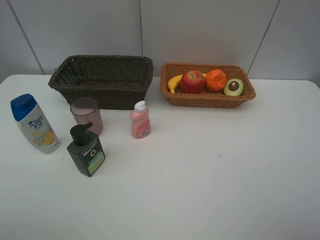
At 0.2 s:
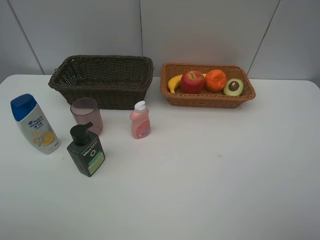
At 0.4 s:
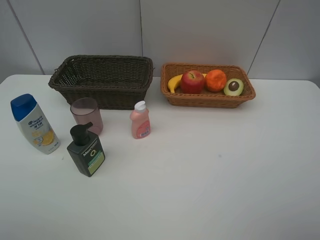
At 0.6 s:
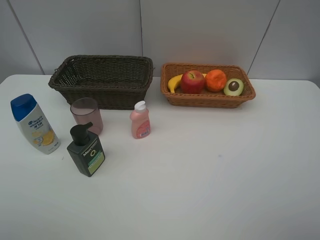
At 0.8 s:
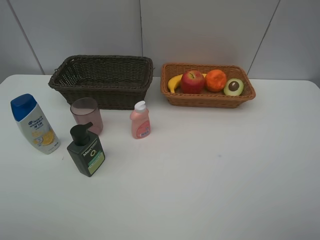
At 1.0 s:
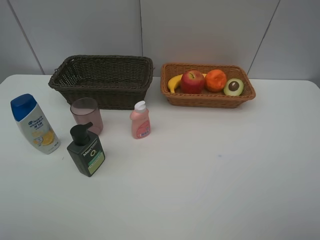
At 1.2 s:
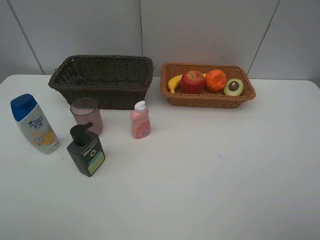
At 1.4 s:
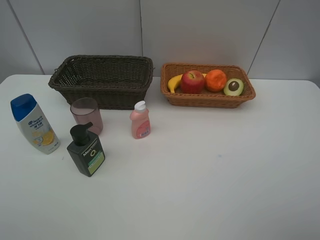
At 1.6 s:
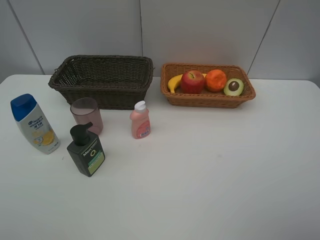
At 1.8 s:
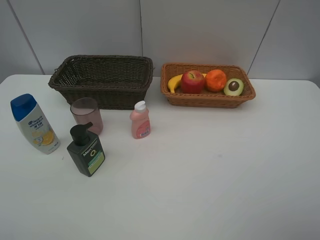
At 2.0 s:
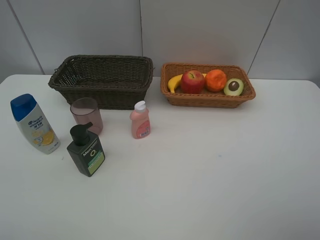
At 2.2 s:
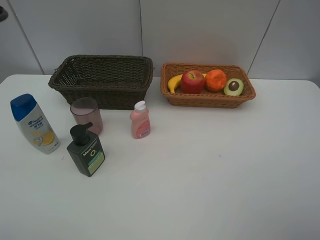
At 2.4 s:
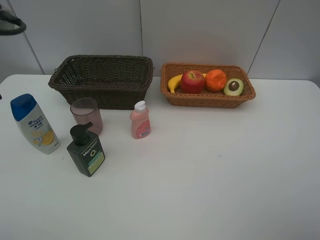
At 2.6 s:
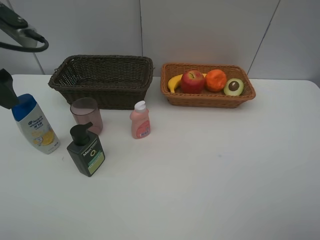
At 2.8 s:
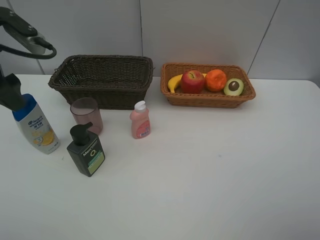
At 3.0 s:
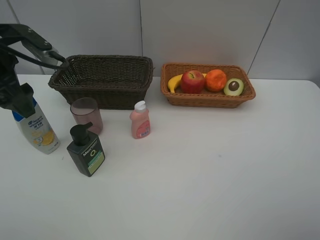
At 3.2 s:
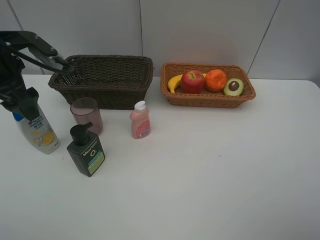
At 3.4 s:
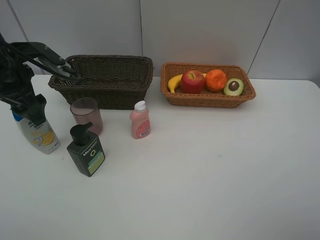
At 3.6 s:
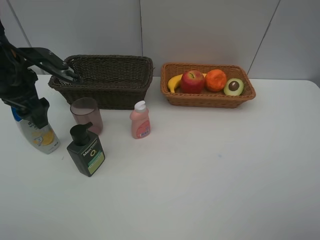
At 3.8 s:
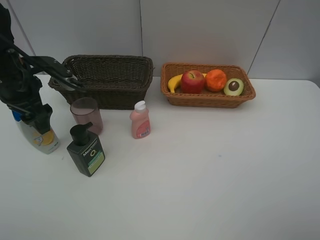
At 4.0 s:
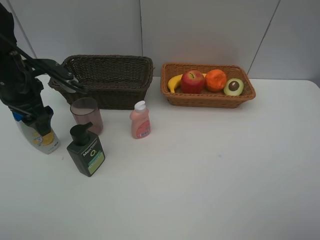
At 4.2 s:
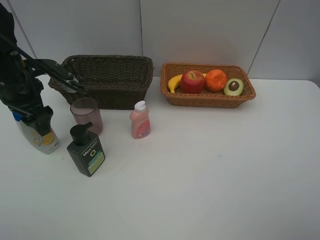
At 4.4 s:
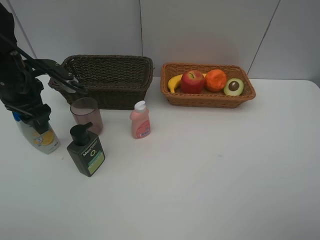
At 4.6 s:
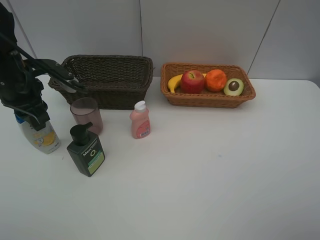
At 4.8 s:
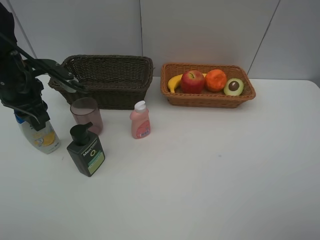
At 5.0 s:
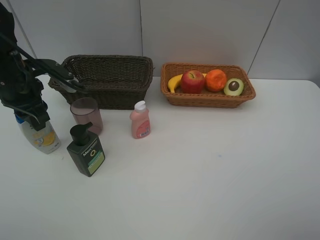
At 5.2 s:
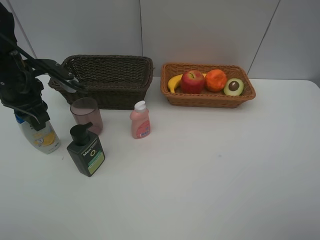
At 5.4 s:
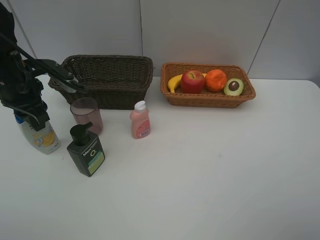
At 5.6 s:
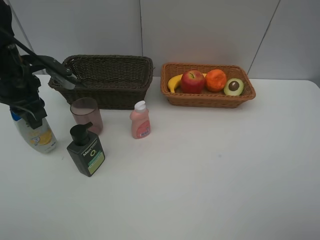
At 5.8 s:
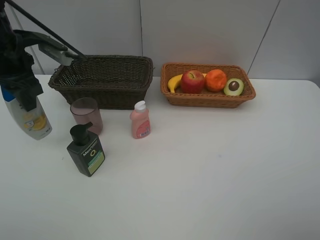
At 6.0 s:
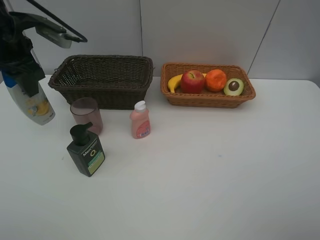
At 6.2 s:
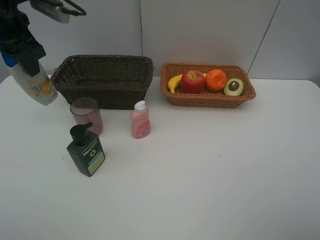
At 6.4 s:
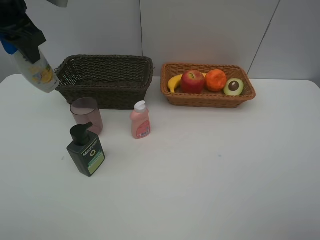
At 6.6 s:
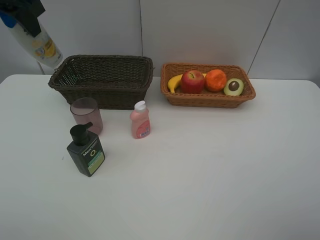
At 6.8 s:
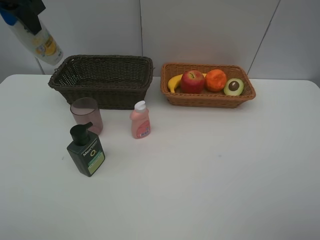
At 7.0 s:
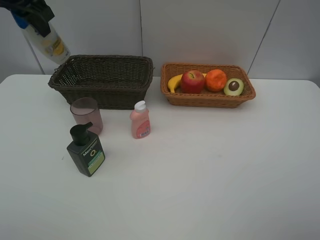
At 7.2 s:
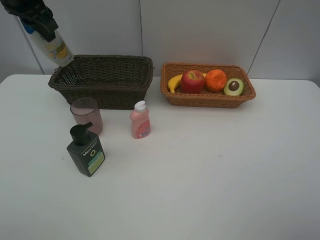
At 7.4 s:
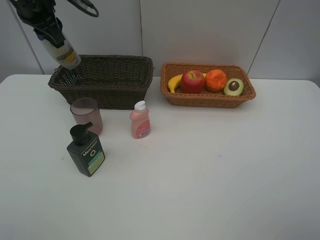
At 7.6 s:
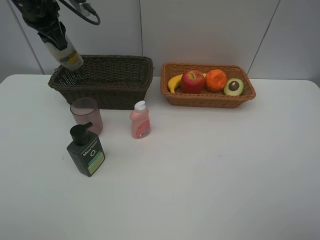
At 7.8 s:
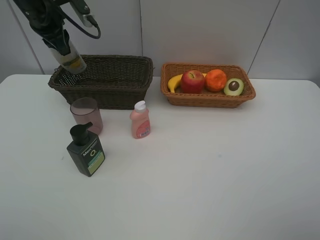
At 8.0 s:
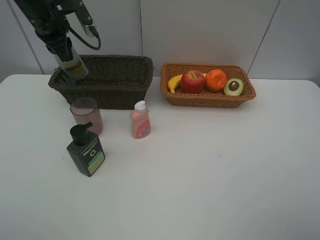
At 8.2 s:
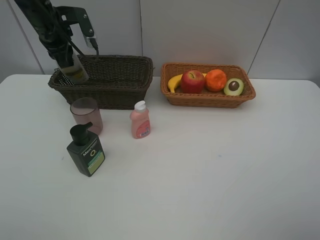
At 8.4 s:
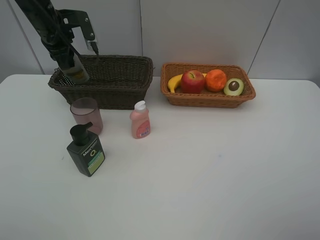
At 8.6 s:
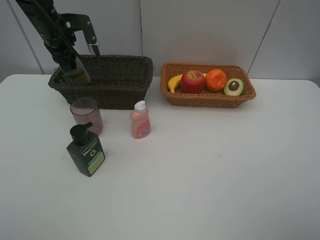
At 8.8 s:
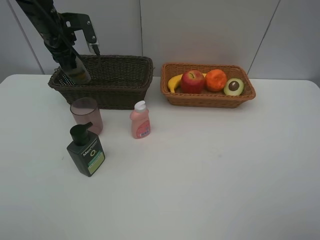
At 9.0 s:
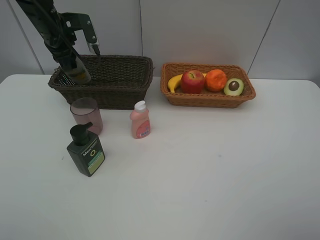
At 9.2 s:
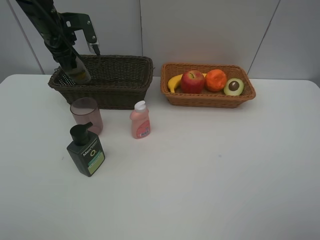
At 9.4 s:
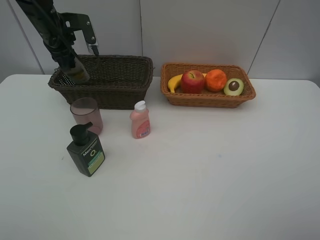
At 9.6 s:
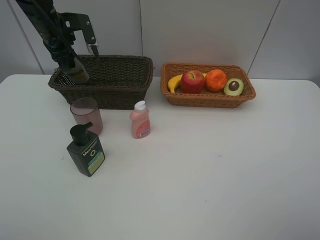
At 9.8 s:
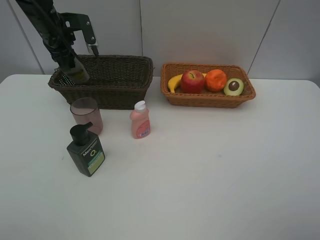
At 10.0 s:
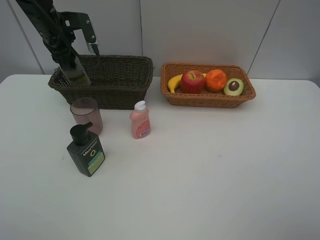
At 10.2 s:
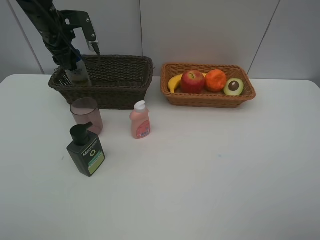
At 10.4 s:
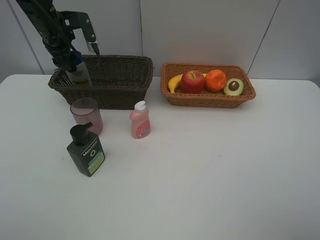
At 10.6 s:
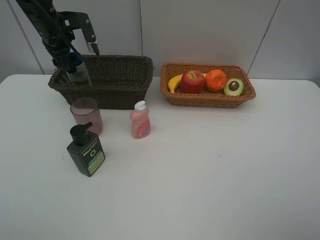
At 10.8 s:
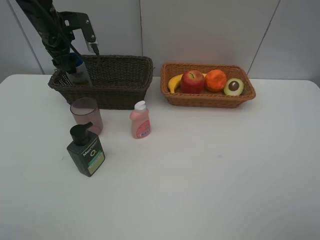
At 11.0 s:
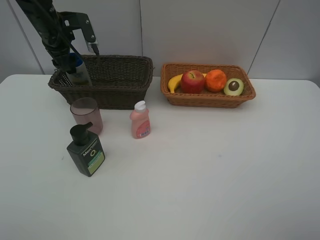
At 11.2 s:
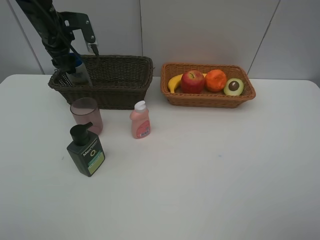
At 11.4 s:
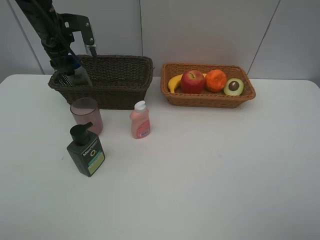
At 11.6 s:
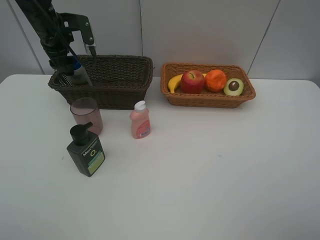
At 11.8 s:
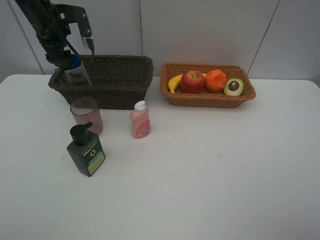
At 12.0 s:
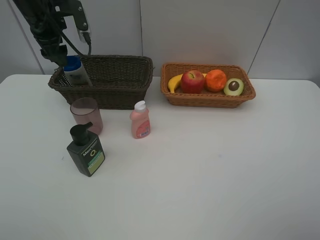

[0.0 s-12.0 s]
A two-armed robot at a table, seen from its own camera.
Task of the whole recording: Place multiple objects separately in different baskets.
Step, 0.0 to 5.8 s: Pick up the shampoo with left gripper.
1.6 to 3.0 s: The left gripper is displaced forward and downward by approximately 20 cm.
3.0 to 4.4 s: The left gripper moves downward, some 5 cm.
4.4 to 6.0 s: The left gripper heads upward, covering roughly 10 cm.
6.0 to 7.6 s: The left gripper moves forward, approximately 10 cm.
7.6 to 9.0 s: The left gripper travels downward by approximately 5 cm.
10.4 to 12.0 s: There are only small adjustments of the grippers.

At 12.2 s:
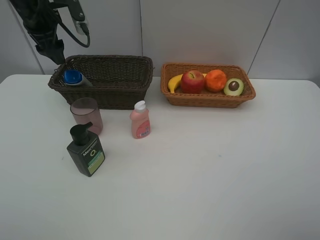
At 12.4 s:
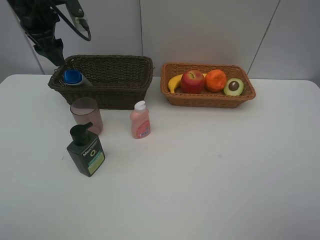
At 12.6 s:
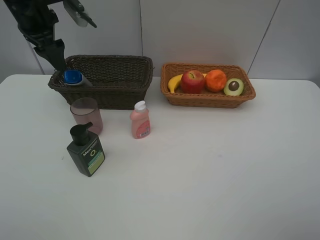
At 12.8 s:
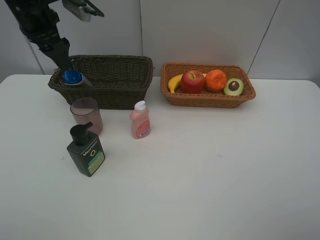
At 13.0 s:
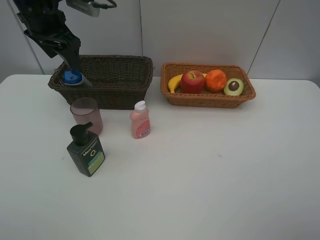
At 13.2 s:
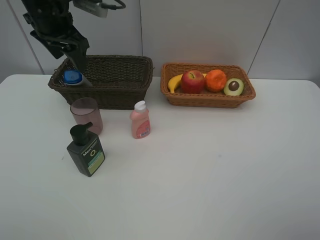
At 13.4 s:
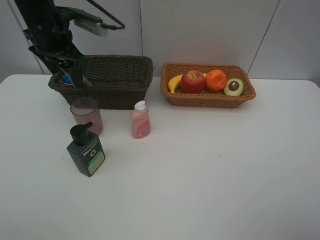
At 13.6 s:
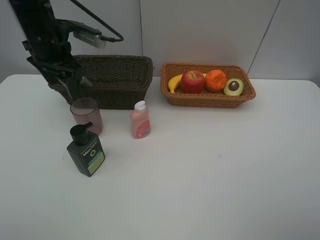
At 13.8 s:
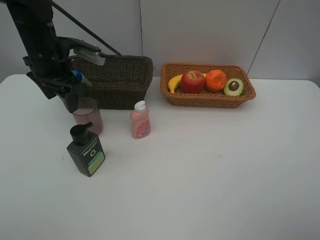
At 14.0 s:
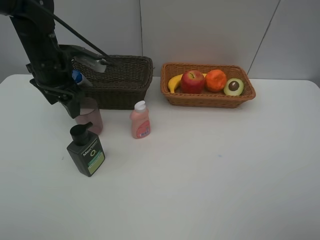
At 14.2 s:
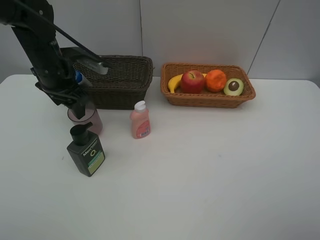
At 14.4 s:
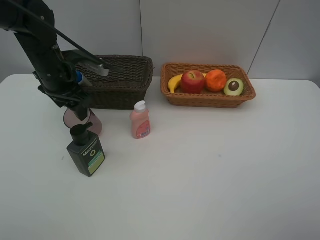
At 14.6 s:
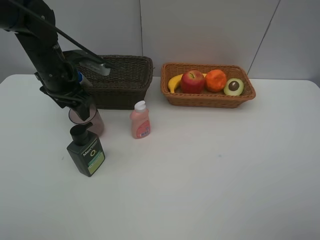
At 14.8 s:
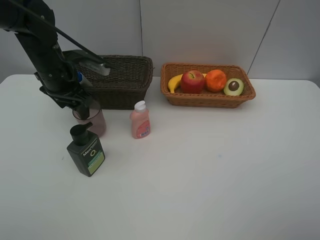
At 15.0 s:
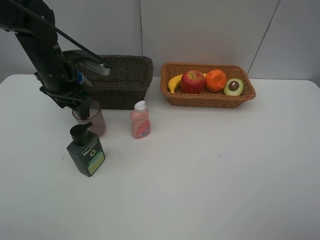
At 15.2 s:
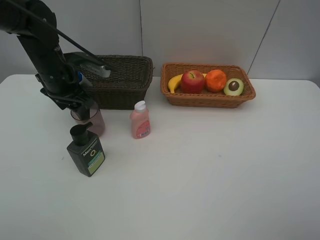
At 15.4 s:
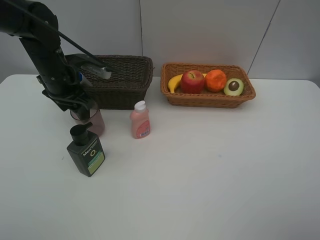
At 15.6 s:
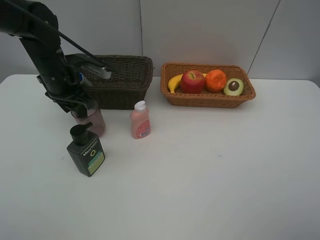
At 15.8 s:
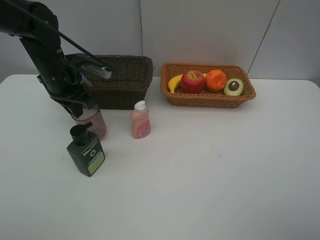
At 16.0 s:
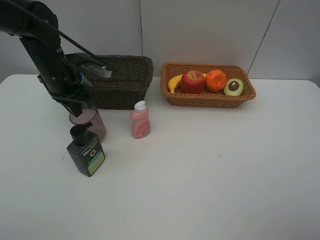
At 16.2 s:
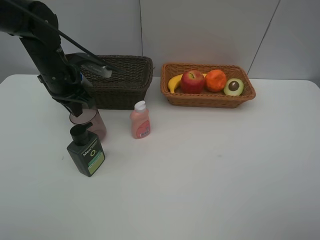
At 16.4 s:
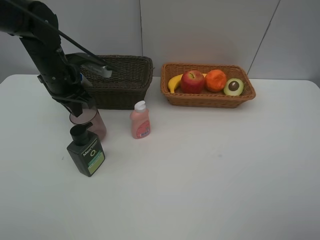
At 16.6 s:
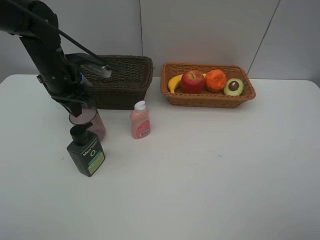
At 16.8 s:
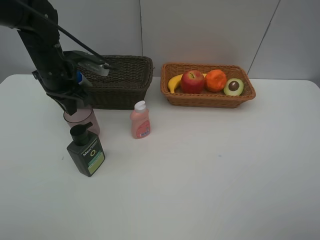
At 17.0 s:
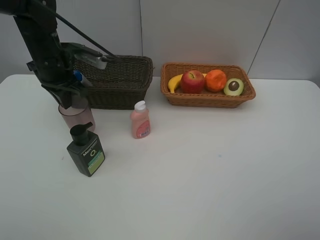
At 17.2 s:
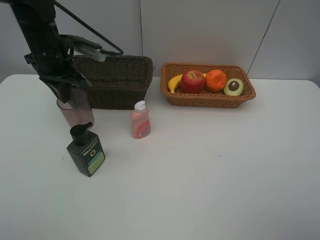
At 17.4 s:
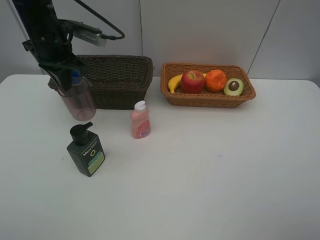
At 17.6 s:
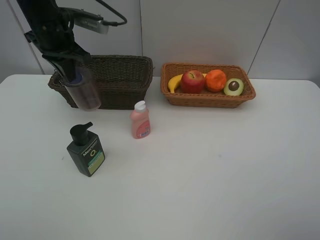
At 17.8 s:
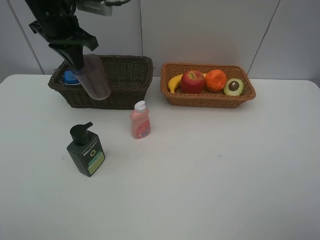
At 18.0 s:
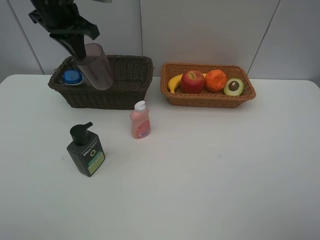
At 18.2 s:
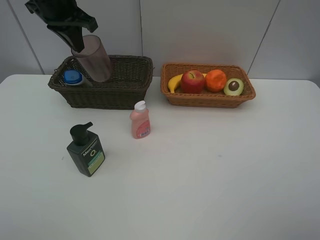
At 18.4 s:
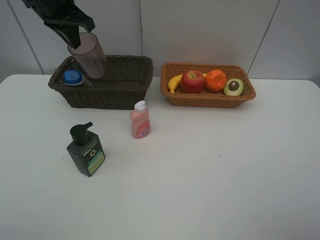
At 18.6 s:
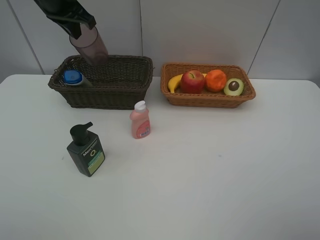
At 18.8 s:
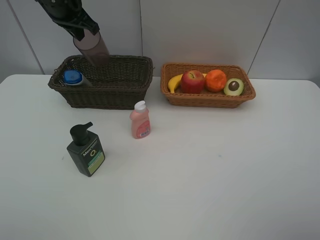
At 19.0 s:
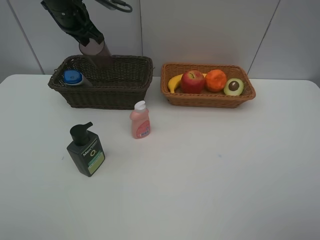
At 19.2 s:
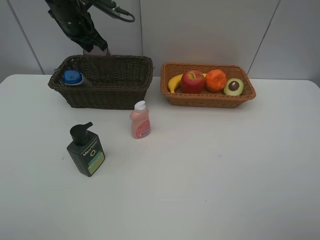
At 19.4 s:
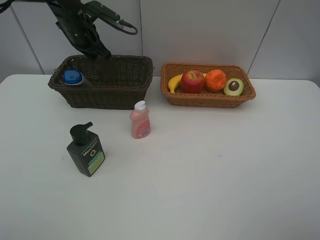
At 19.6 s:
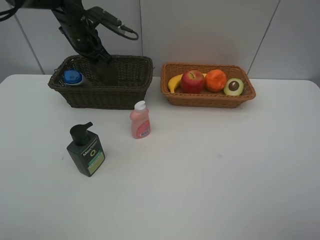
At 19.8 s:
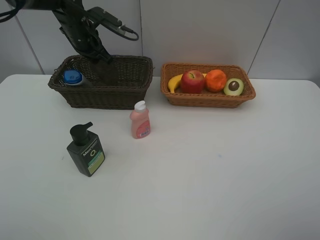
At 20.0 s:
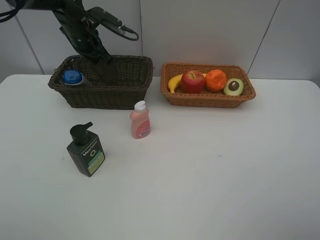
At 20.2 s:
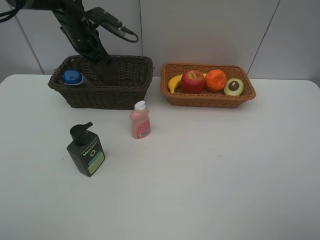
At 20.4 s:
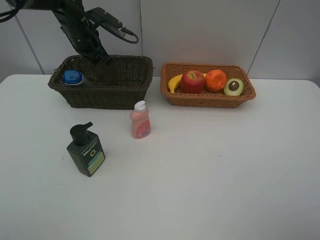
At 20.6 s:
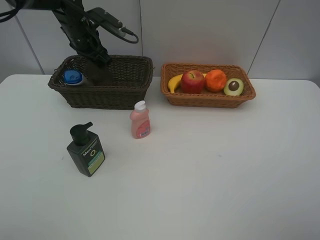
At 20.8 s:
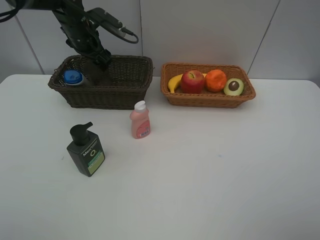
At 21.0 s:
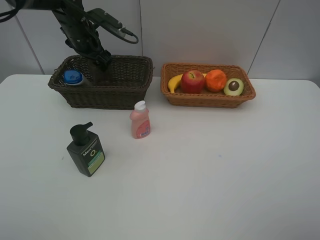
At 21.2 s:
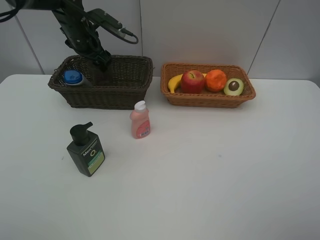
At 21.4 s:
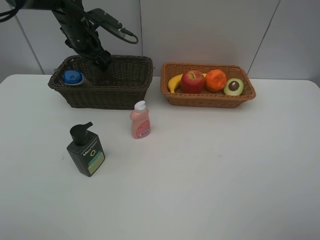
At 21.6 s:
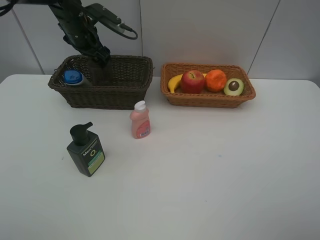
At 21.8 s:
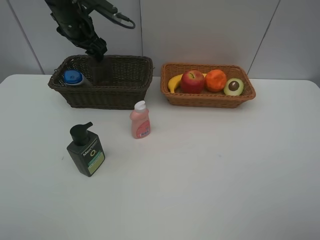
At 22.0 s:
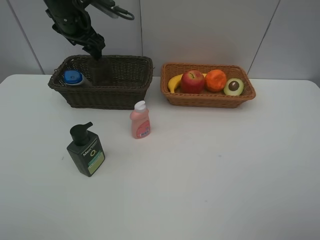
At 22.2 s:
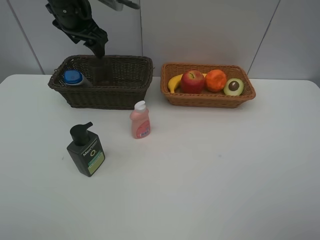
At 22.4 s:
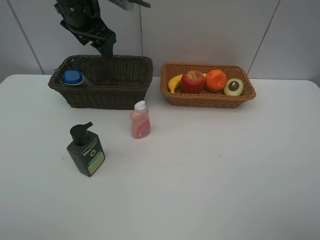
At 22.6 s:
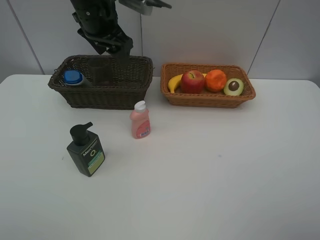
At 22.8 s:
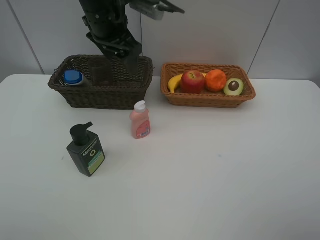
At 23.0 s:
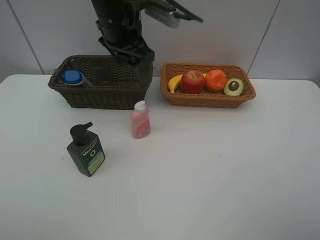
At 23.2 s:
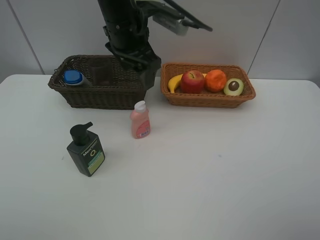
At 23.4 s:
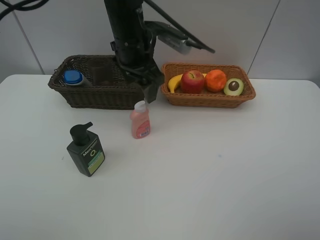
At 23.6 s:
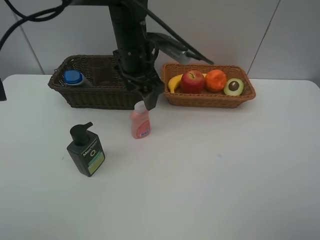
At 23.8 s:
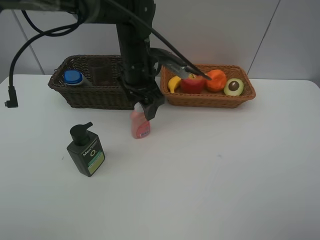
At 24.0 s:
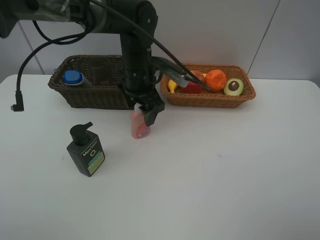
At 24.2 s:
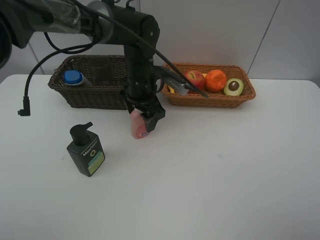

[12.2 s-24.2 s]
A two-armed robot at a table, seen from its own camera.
Task of the whole recording: Place multiple objects separately in different baskets.
Step, 12.4 to 16.8 s: Pick up the red cup with left gripper.
Step, 17.0 to 21.4 s: Place the red cup in the dark basket with left gripper.
12.2 to 13.8 s: The left gripper travels backward and downward by about 10 cm.
13.8 to 15.2 s: The grippers move only a little.
15.2 to 16.6 s: The left gripper closes.
16.6 to 18.2 s: The left gripper shifts roughly 15 cm upward.
18.2 to 19.8 s: The left gripper is displaced downward and forward by roughly 15 cm.
21.2 to 22.6 s: The left gripper travels backward, upward and to the right by approximately 15 cm.
22.6 to 24.2 s: The left gripper travels downward and to the right by about 15 cm.
